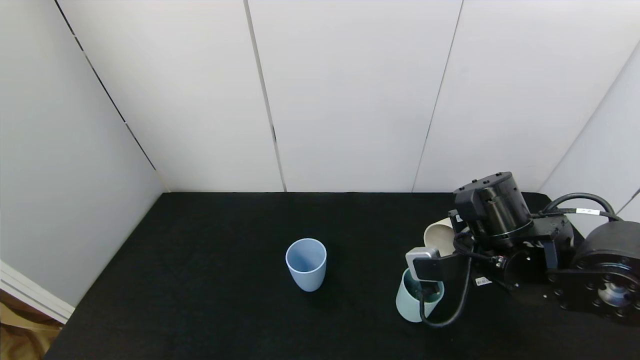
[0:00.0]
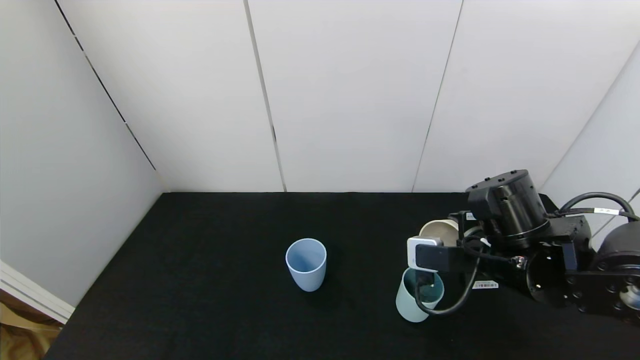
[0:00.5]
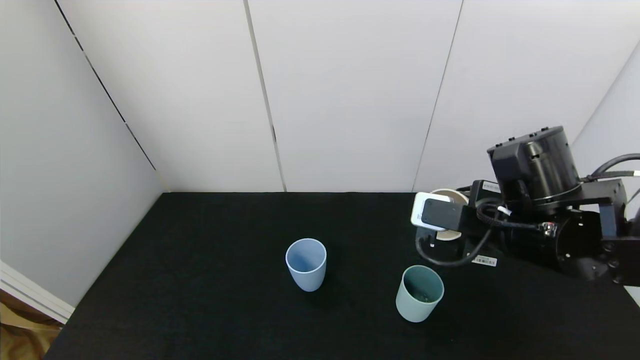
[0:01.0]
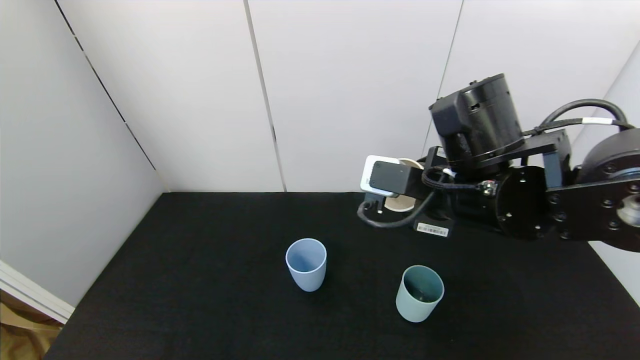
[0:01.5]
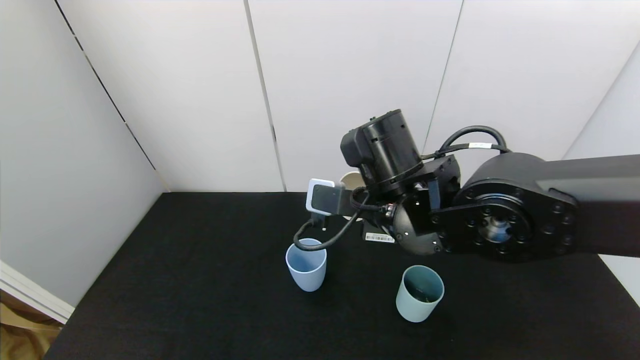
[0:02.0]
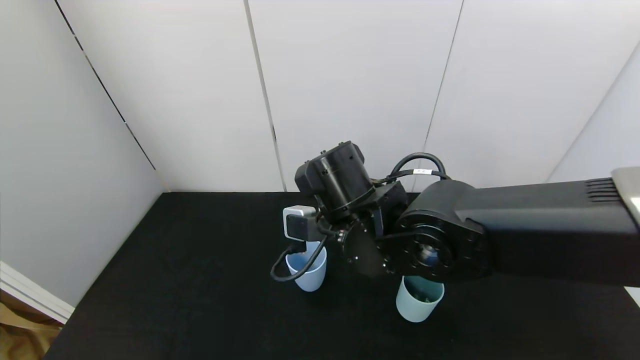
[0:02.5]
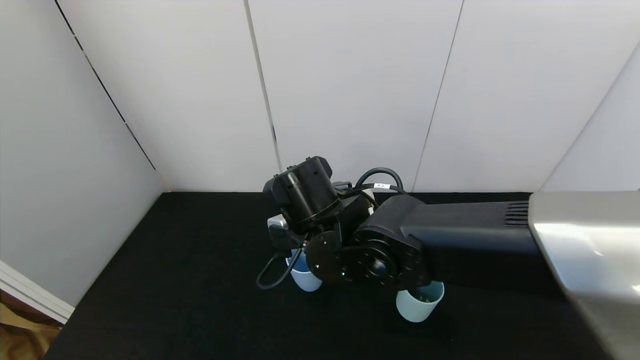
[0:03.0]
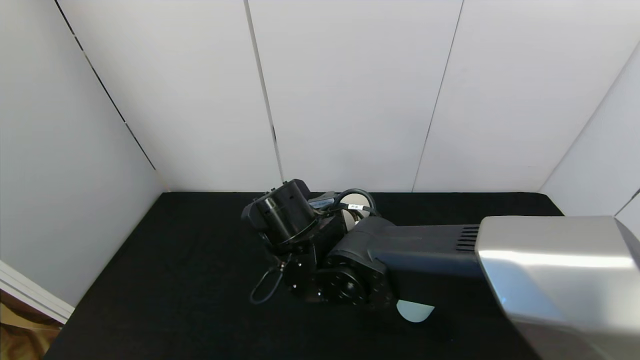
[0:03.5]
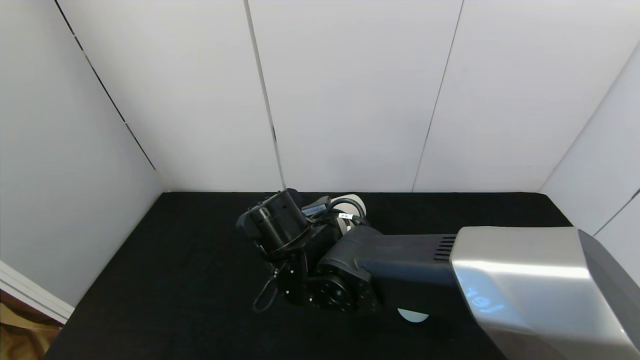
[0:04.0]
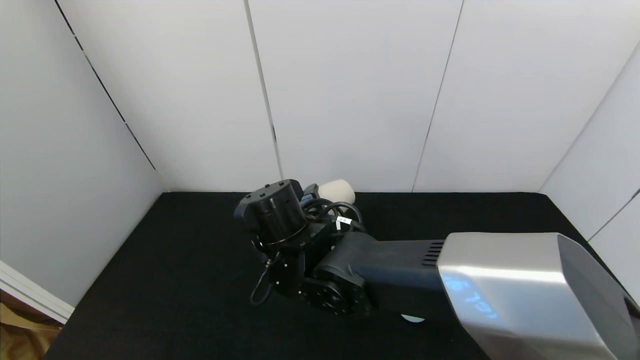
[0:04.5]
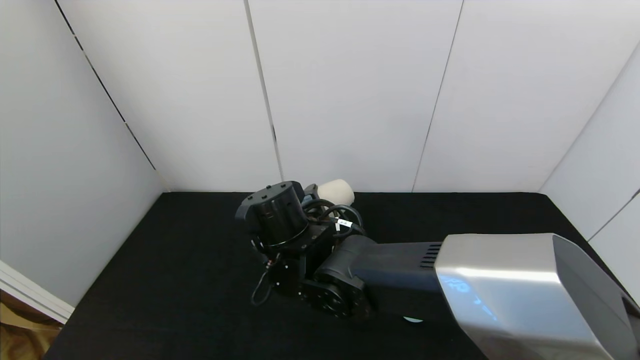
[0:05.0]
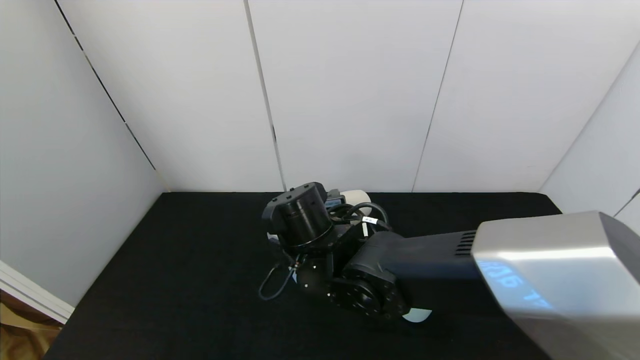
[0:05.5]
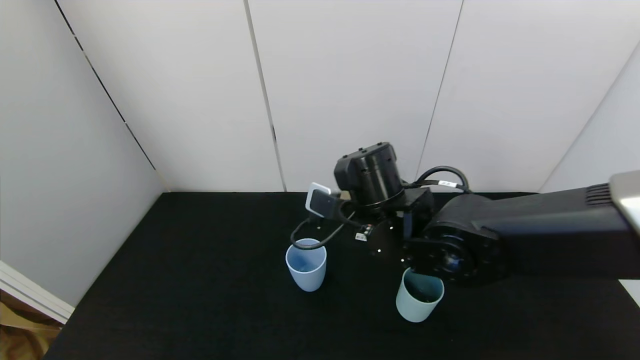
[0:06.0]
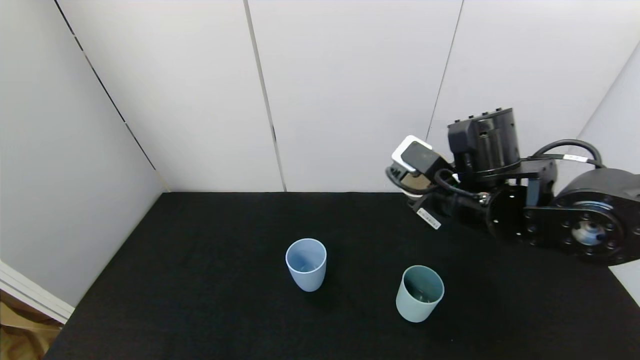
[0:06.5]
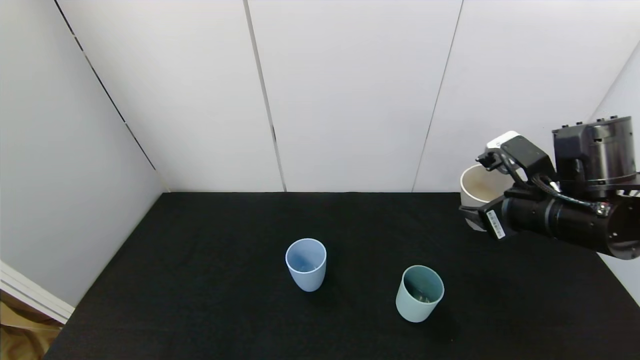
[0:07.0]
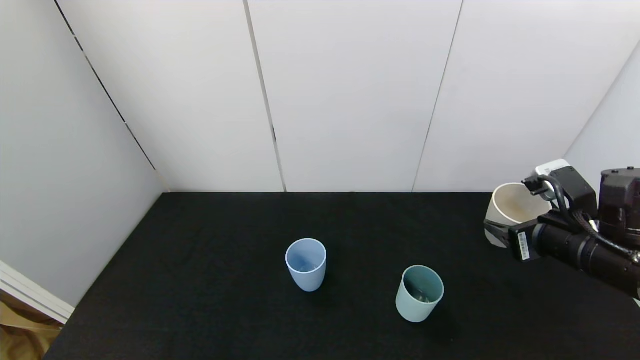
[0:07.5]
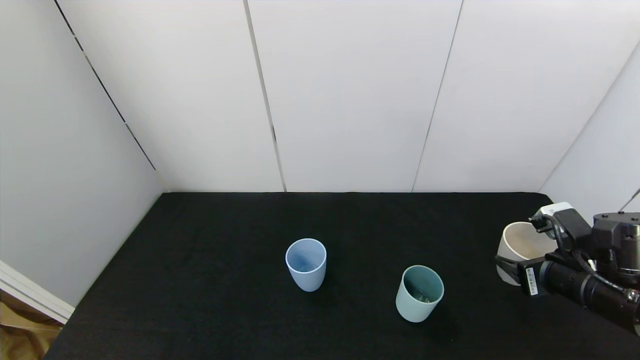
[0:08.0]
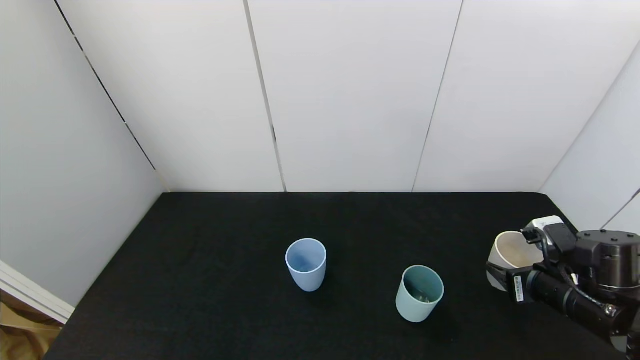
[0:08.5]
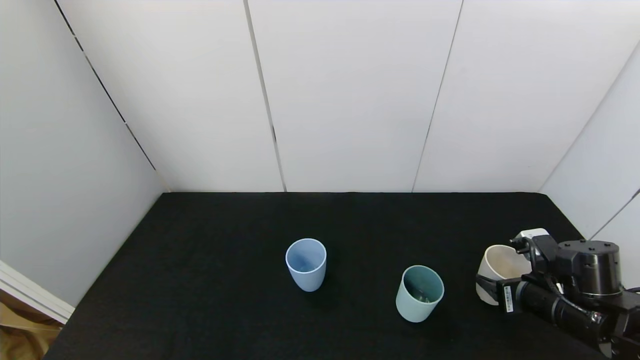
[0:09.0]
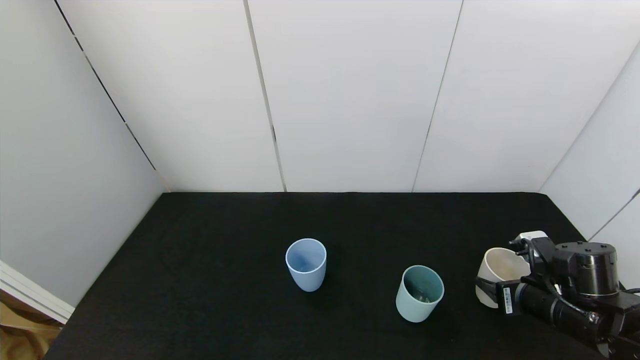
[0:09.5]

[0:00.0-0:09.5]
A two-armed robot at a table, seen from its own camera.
Task of the whole recording: use the gripper to pour the water into the other two cups on black table.
Step, 0:00.5 to 0:05.0: Pour water from white cup to blue cup with the right gripper.
0:00.0 to 0:02.0: The right gripper heads to the left and upward, covering some 15 cm.
0:02.0 to 0:04.0: The right gripper travels to the left and downward by roughly 15 cm.
0:04.0 to 0:05.5: The grippers make only small movements.
0:05.5 to 0:07.5: The right gripper shifts roughly 30 cm to the right.
0:07.5 to 0:09.5: The right gripper travels downward by some 10 cm.

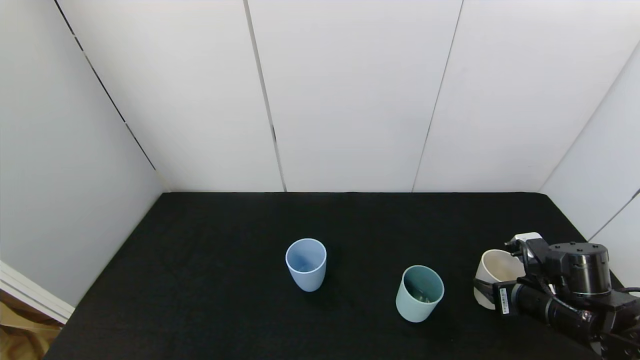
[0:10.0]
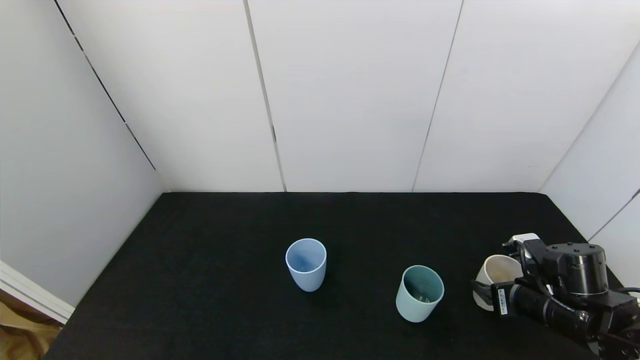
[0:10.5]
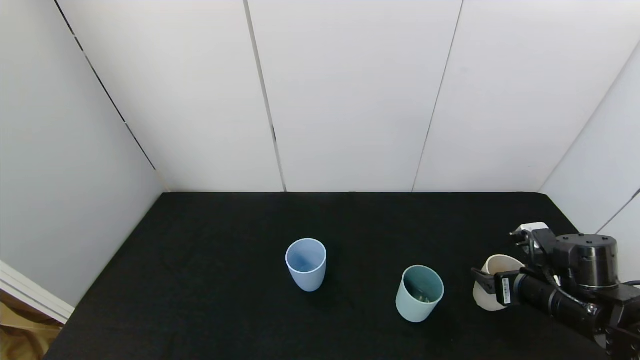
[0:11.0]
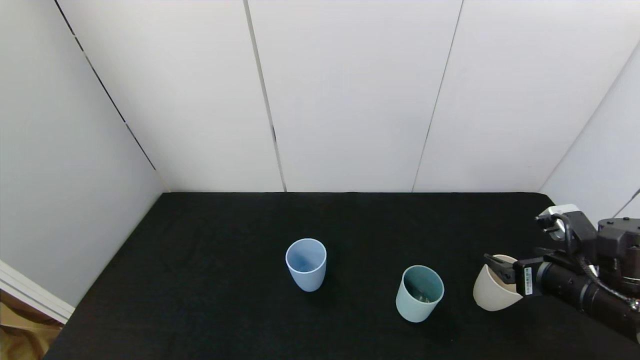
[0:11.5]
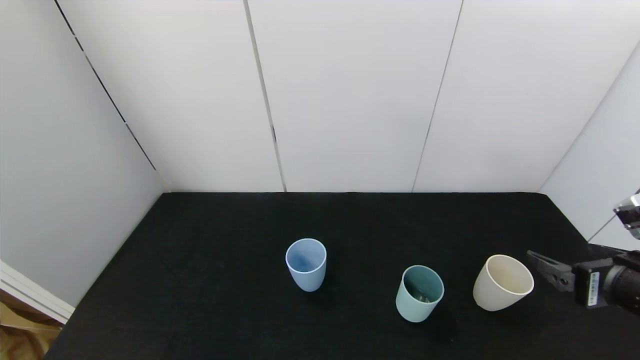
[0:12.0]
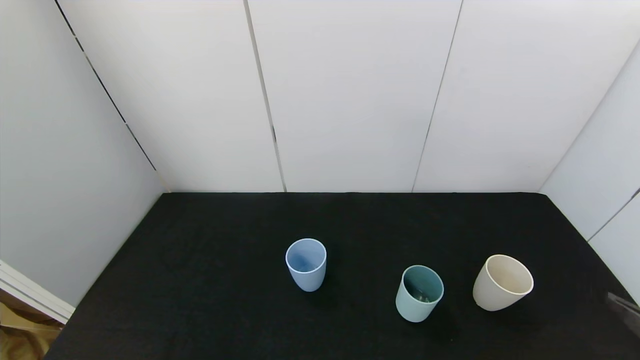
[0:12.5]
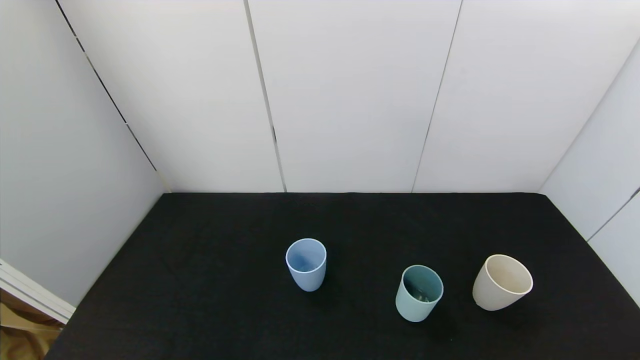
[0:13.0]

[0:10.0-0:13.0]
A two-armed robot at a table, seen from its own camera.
Task of the whole recording: use the gripper to pour the water into the other two cups on black table.
0:10.0 to 0:11.5: The right gripper is displaced upward by some 5 cm, and opens its fingers.
0:11.5 to 0:13.0: The right gripper heads backward, covering roughly 25 cm.
